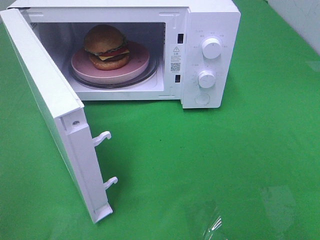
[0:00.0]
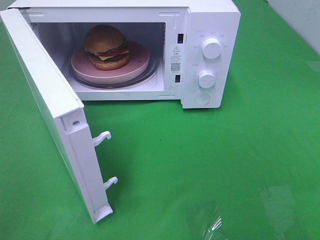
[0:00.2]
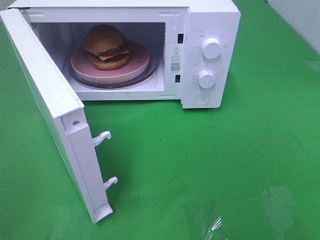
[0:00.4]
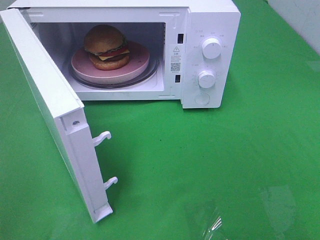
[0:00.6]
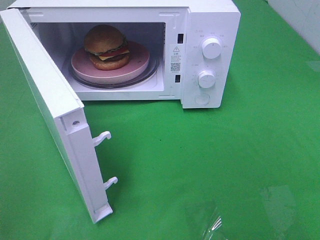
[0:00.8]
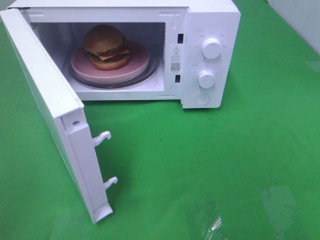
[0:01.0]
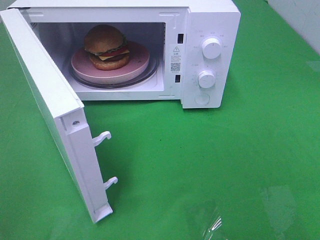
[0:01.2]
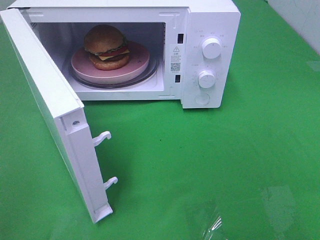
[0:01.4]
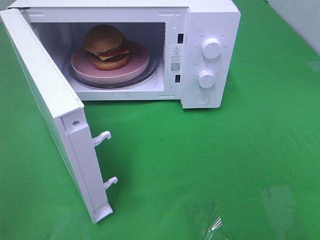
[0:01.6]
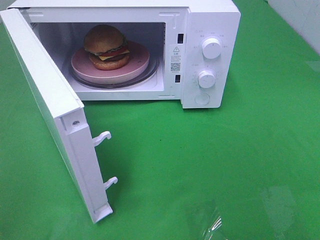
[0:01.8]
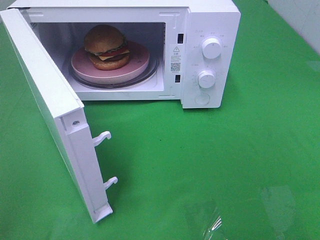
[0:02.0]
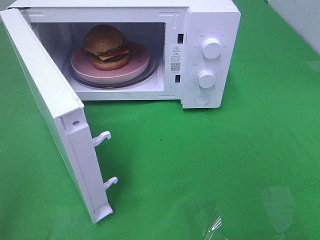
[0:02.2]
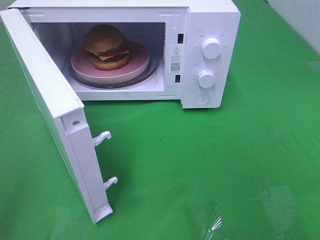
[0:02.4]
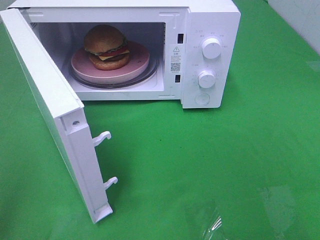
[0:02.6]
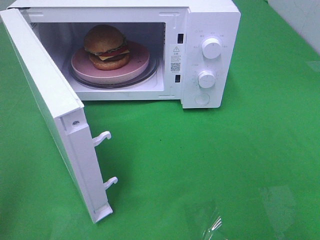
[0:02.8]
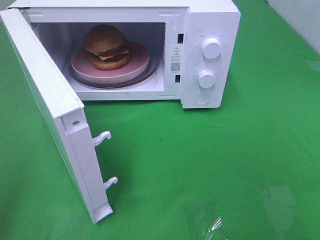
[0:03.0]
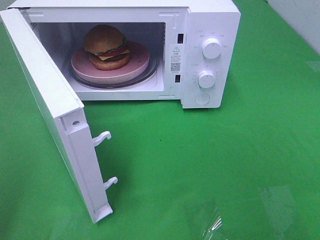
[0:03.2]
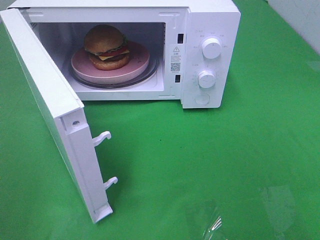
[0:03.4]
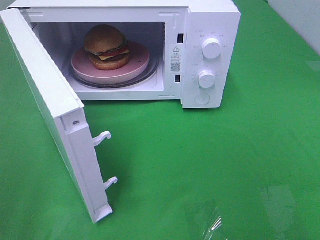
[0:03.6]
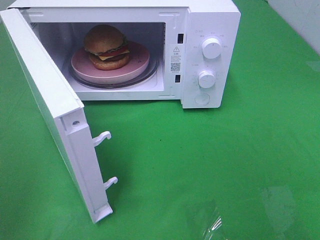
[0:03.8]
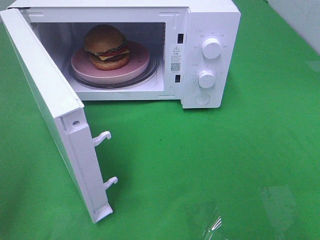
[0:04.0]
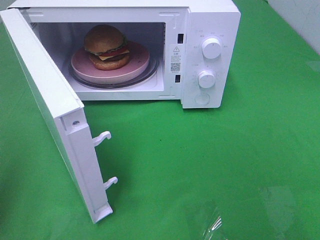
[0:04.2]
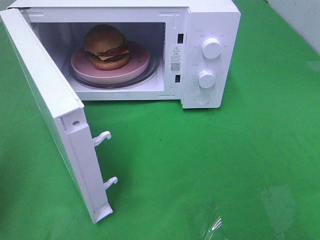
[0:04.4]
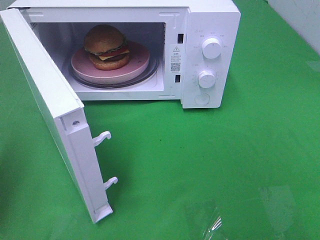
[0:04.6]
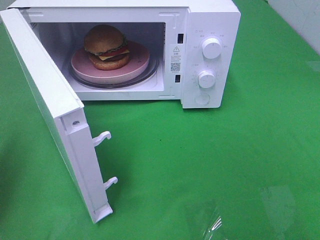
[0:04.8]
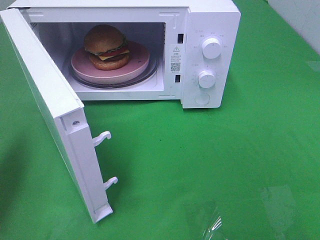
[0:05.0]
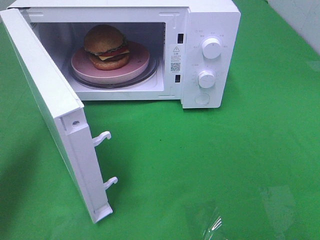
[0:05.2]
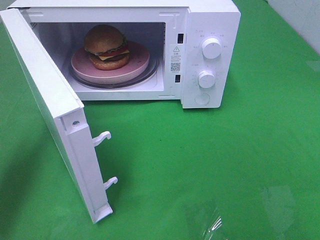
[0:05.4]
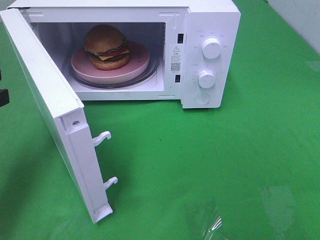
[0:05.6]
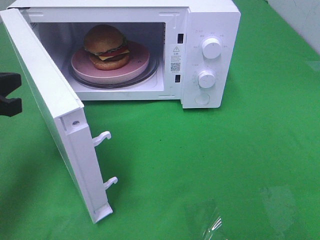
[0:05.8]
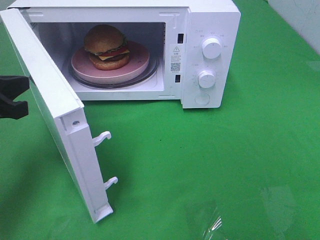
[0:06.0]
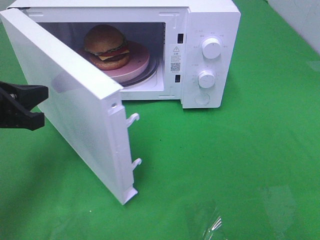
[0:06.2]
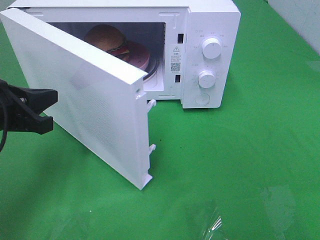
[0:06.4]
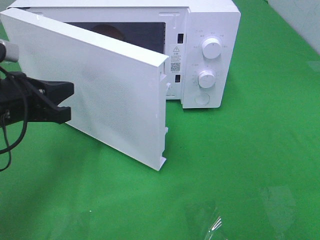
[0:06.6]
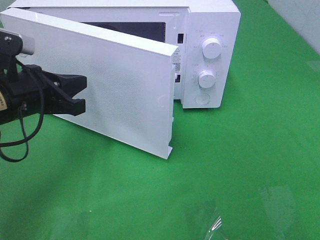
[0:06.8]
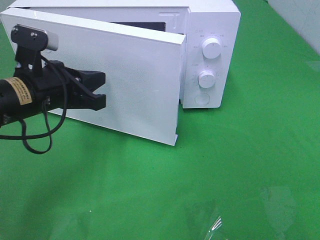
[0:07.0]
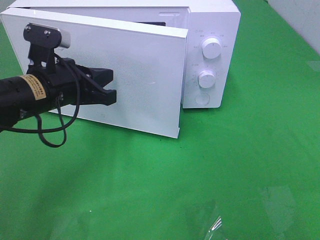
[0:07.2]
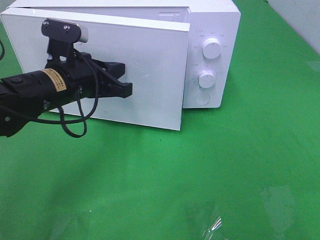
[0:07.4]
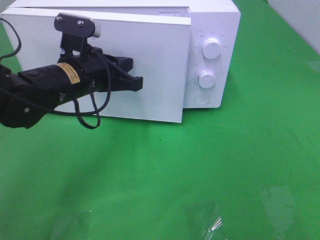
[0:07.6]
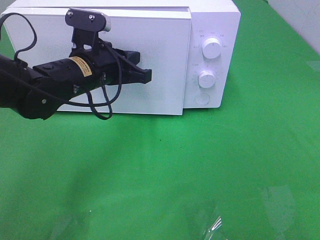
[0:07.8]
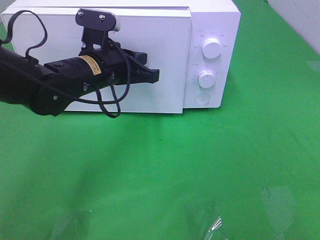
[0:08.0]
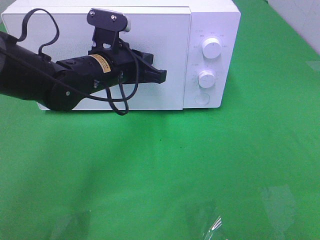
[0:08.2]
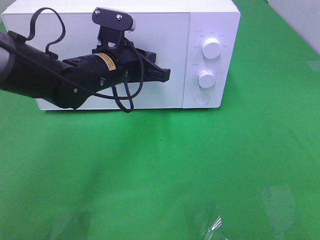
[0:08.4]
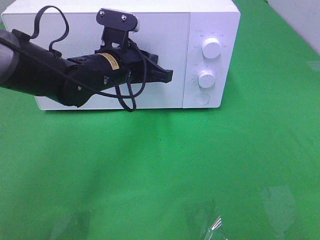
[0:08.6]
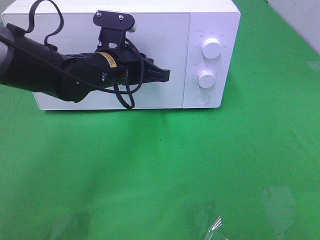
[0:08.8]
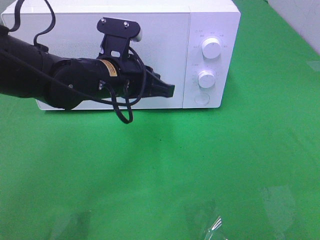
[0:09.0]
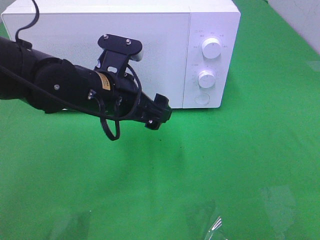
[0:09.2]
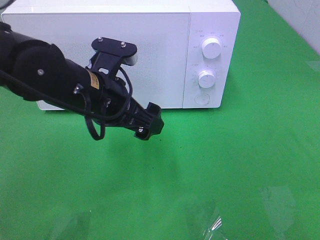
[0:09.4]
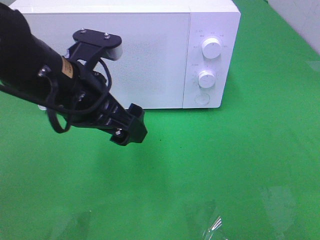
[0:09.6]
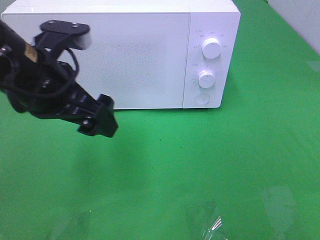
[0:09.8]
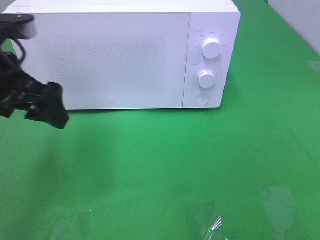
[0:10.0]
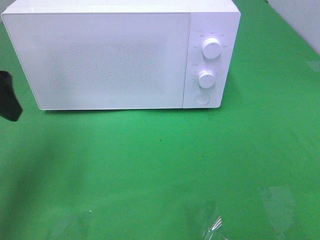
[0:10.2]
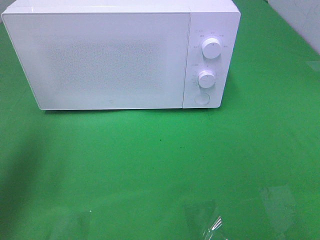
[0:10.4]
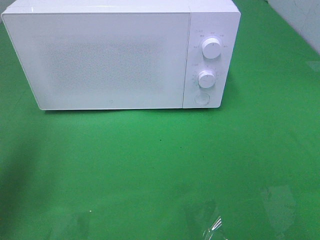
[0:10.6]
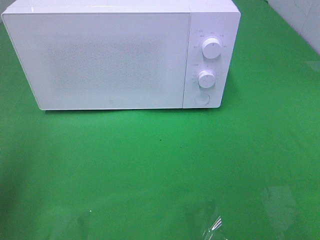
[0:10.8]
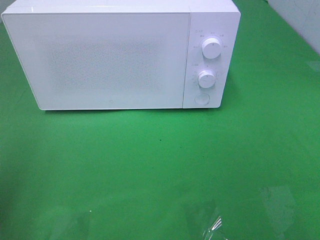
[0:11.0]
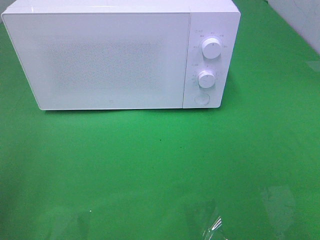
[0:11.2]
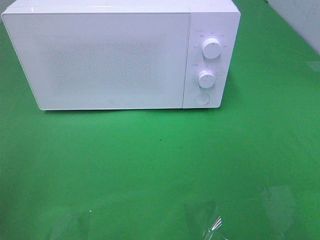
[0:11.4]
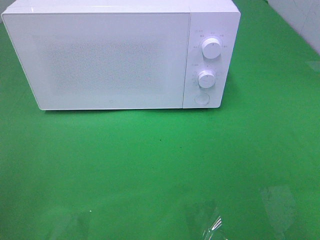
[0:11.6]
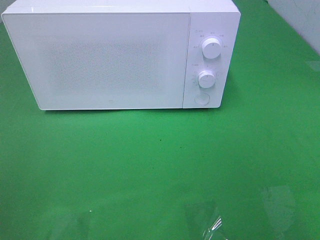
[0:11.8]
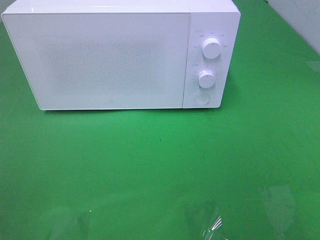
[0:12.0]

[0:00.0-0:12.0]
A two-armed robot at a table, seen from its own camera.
Task of the whole recording: Heat the burger.
Step, 0:00.0 to 0:09.2: Left hand: close the microwave door.
0:00.0 to 0:01.6: Neither gripper changes place.
0:04.4 to 0:06.0: The left gripper moves forward, downward and to the right, some 15 cm.
0:06.0 to 0:07.6: The left gripper travels to the right and forward by approximately 15 cm.
0:07.6 to 0:09.0: There are only small adjustments of the grippers.
0:09.0 to 0:10.4: The left gripper moves to the left and upward, roughly 25 cm, and opens its fingers.
0:10.4 to 0:12.0: The left gripper is displaced backward by some 20 cm.

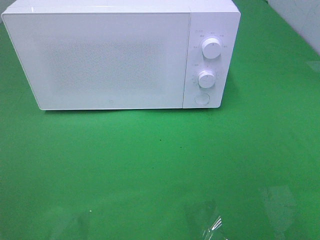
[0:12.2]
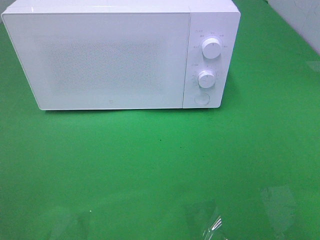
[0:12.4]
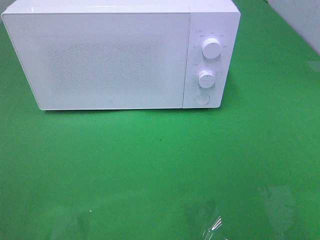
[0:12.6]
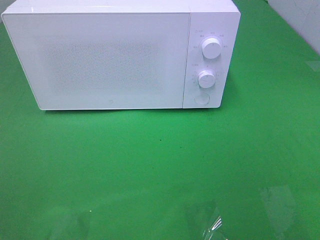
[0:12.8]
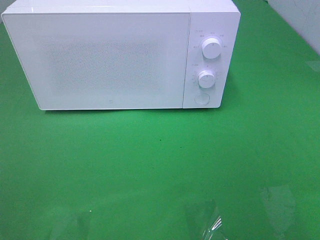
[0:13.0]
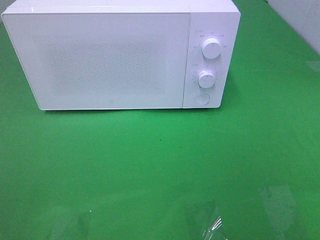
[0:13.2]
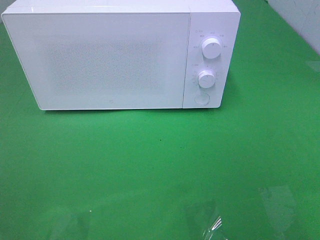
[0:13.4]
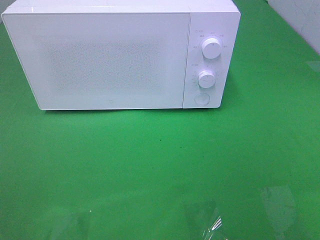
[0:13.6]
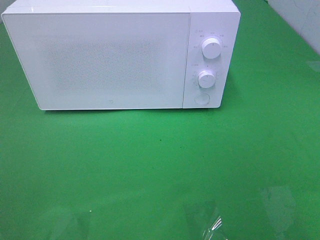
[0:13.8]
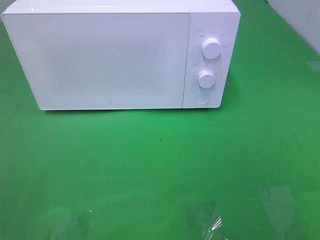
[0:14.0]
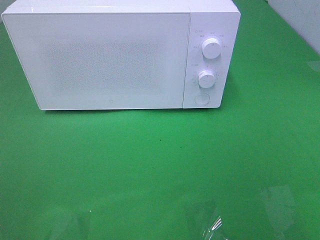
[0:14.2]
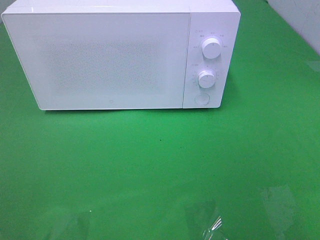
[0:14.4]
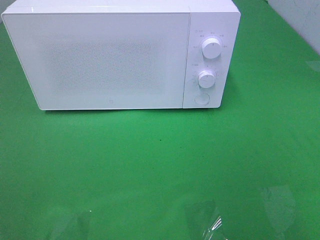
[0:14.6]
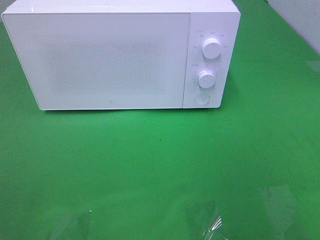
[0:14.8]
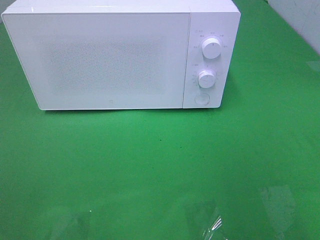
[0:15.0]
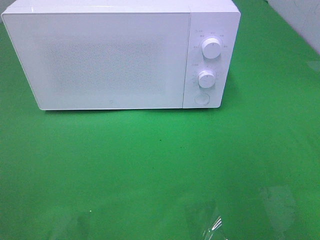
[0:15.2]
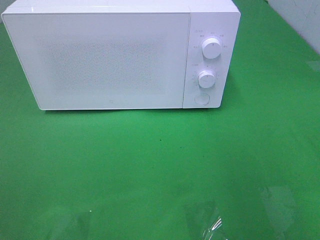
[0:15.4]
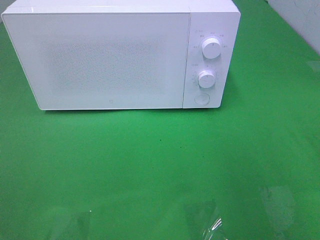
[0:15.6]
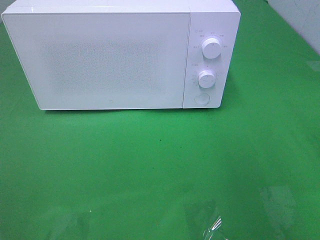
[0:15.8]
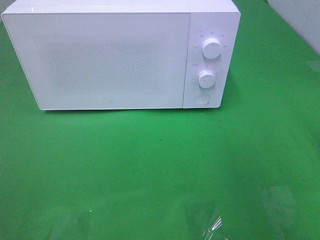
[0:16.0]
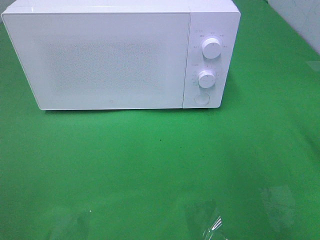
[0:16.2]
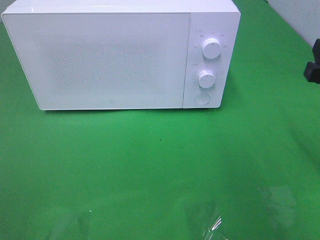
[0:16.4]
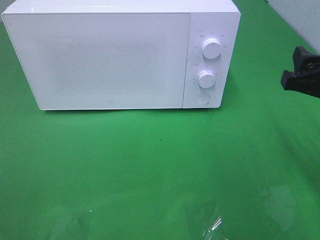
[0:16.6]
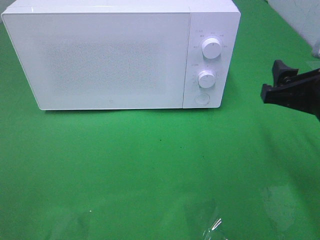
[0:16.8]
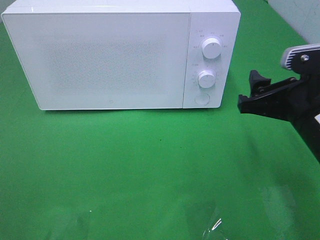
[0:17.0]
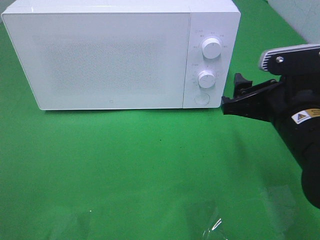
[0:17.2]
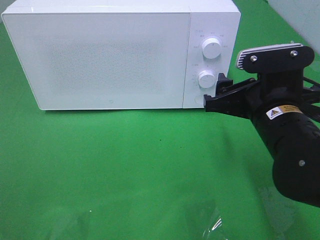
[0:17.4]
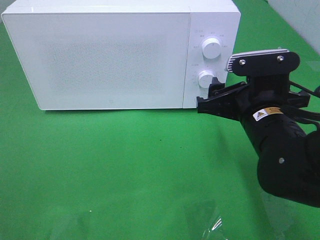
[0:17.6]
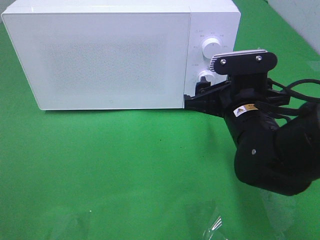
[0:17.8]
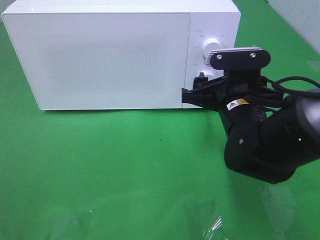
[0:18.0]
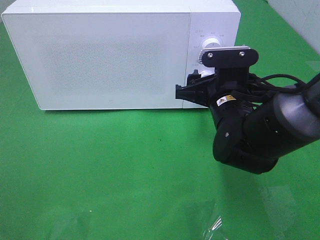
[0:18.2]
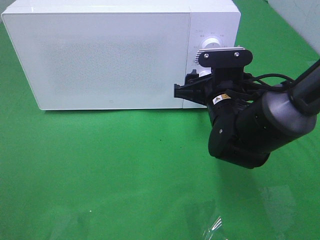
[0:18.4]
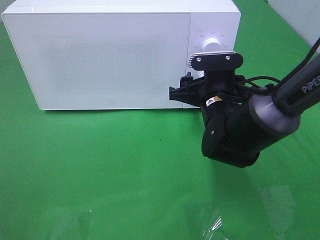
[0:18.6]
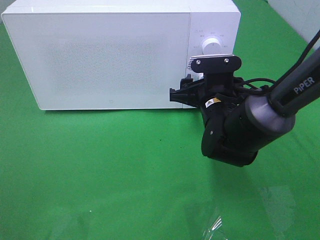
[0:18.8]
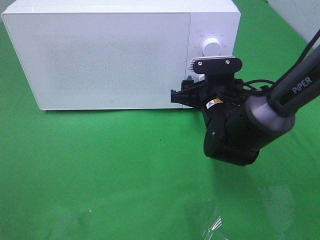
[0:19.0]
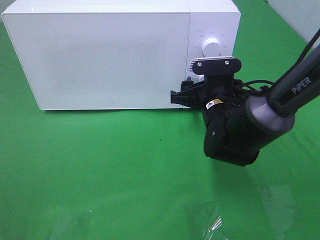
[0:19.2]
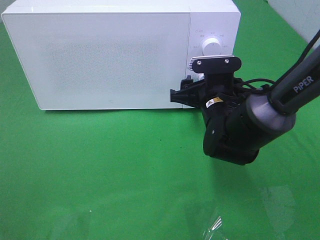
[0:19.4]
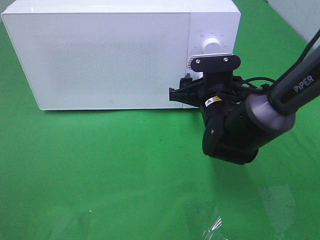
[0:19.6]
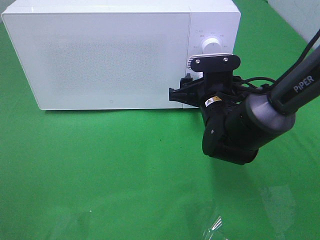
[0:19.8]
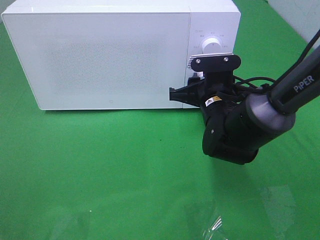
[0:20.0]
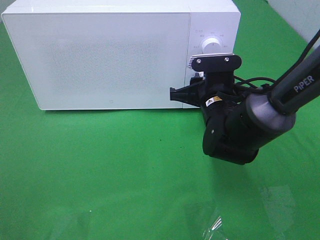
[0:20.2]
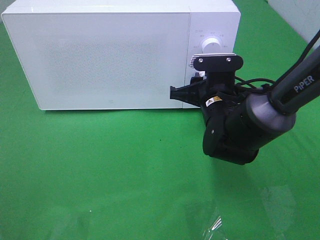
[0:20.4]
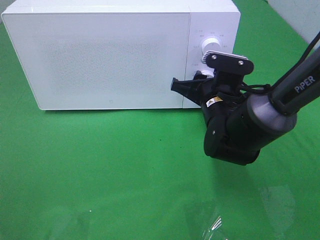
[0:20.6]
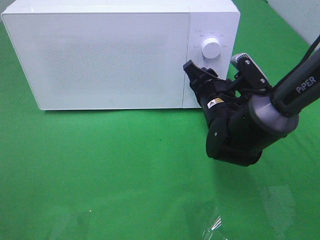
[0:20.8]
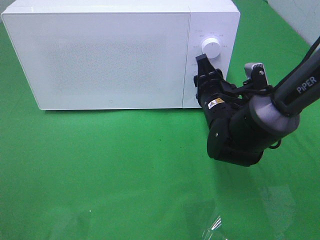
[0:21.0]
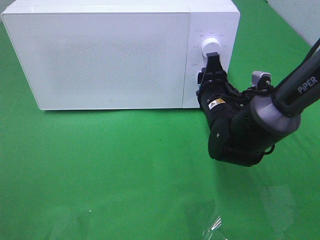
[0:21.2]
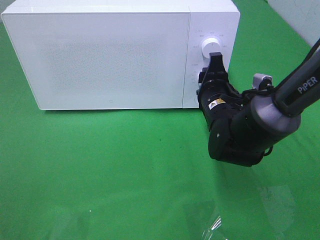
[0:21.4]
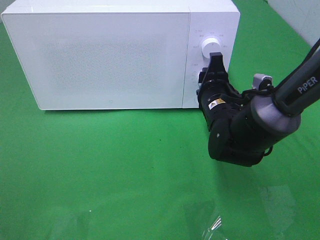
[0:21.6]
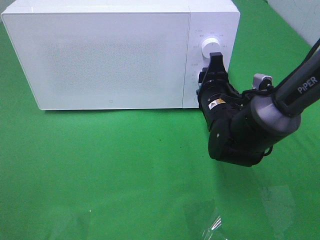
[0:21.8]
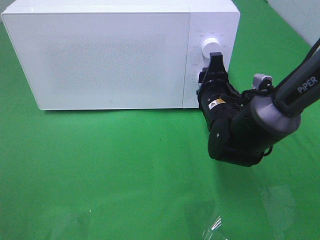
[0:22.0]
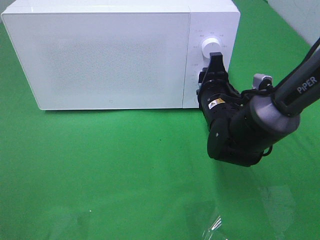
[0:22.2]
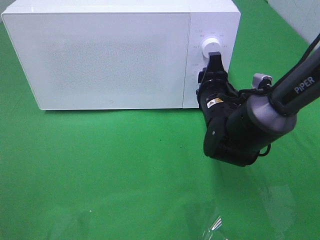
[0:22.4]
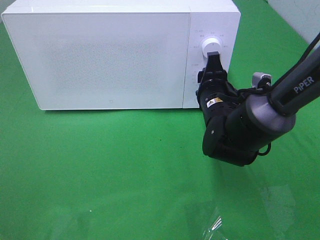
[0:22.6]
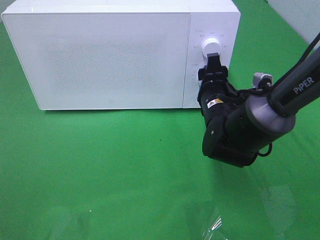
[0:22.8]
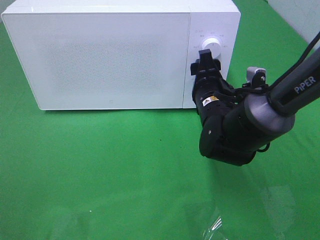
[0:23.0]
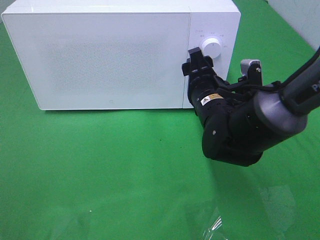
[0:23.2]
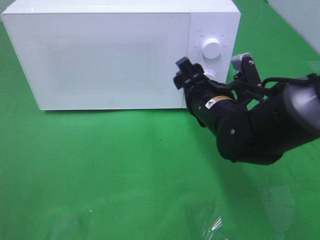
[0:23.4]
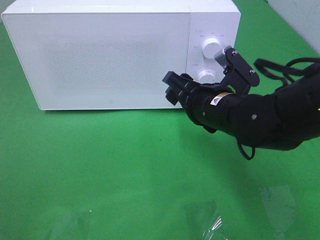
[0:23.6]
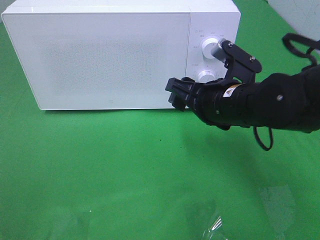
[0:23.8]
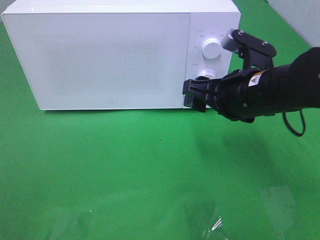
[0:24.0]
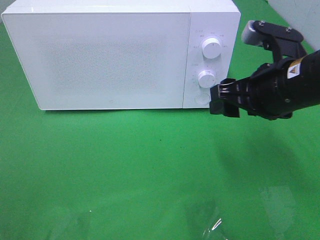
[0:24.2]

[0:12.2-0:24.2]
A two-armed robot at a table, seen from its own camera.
Task of the whole recording: Heat the burger.
Step, 0:12.2 to 0:23.2: Right hand: twist timer button.
0:12.2 to 0:13.8: Both grippers stay about where they are.
0:15.2 to 0:16.6: The right gripper heads forward, downward and to the left, covering roughly 10 cm.
0:16.6 to 0:18.2: The right gripper travels to the left, forward and downward by approximately 15 cm.
0:18.2 to 0:19.8: There are only small adjustments of the grippers.
0:21.2 to 0:22.6: The two grippers keep their place.
0:22.6 to 0:24.2: The right gripper goes approximately 15 cm upward, backward and to the right.
